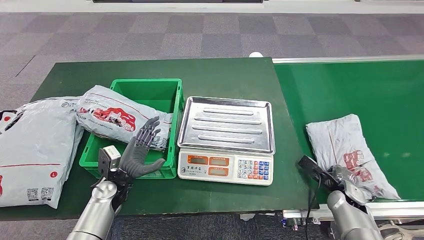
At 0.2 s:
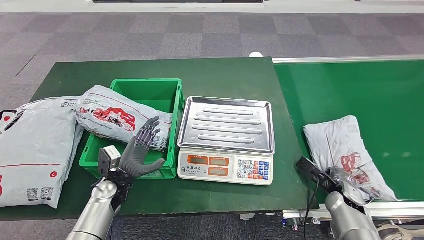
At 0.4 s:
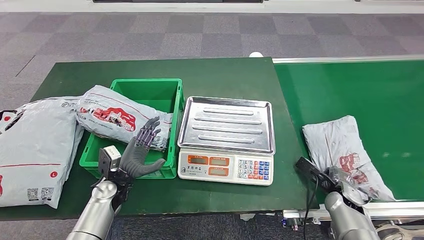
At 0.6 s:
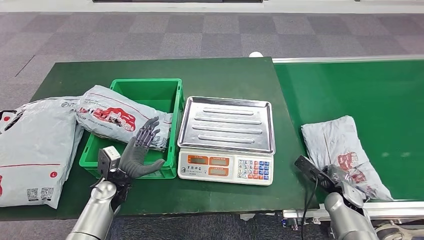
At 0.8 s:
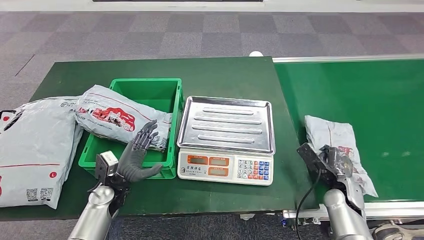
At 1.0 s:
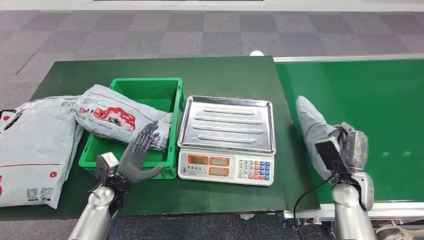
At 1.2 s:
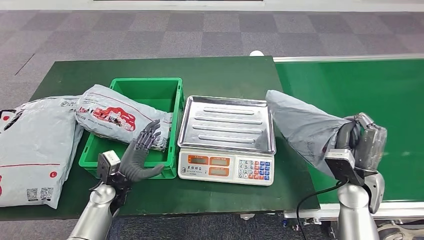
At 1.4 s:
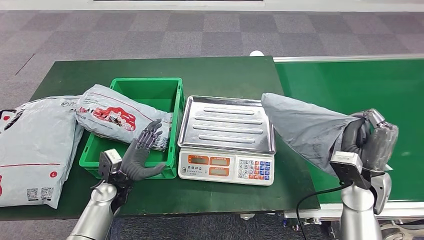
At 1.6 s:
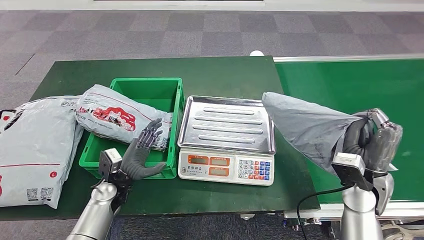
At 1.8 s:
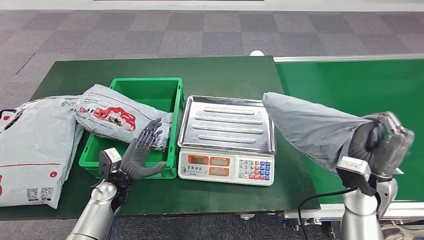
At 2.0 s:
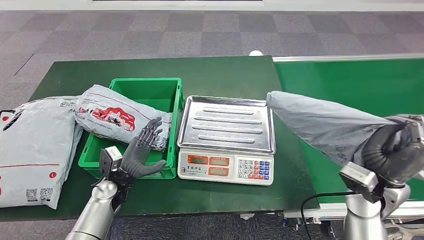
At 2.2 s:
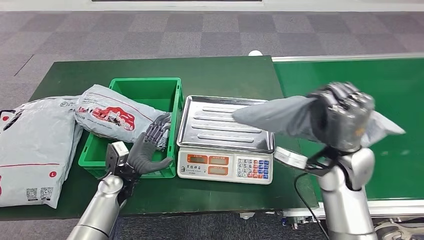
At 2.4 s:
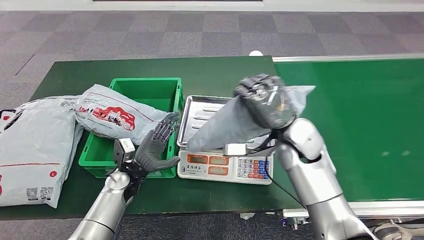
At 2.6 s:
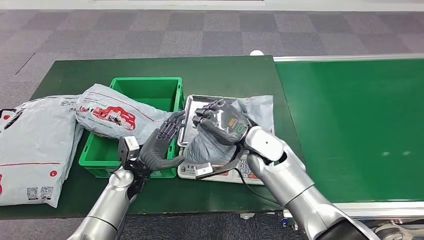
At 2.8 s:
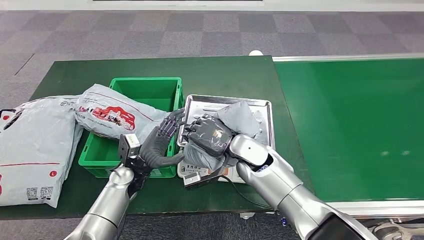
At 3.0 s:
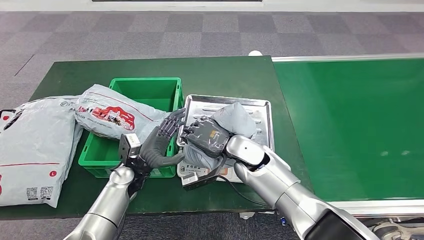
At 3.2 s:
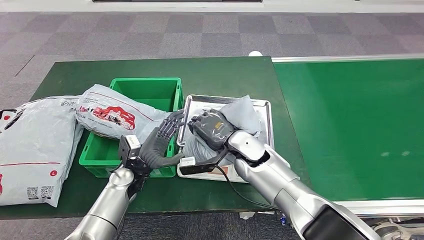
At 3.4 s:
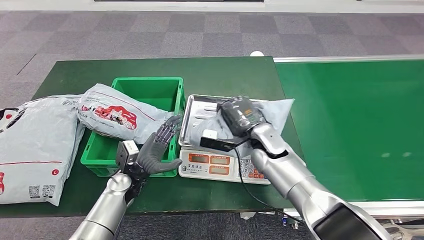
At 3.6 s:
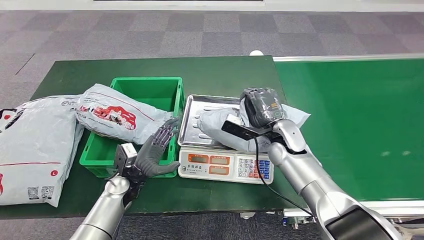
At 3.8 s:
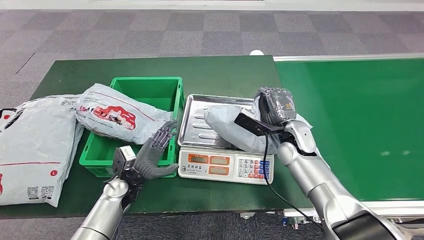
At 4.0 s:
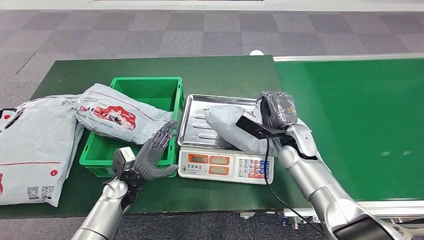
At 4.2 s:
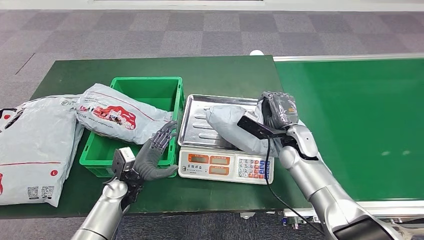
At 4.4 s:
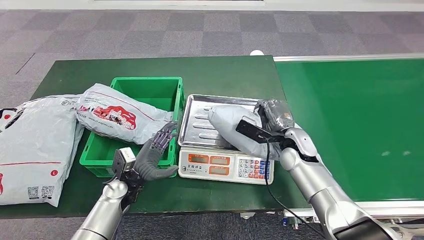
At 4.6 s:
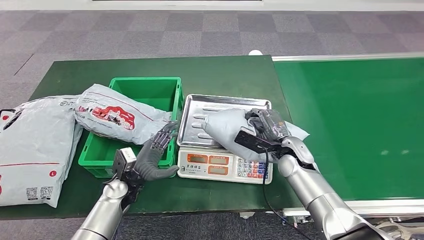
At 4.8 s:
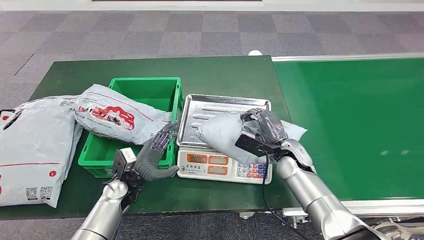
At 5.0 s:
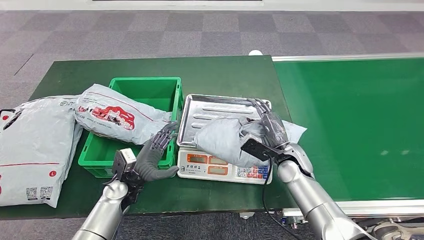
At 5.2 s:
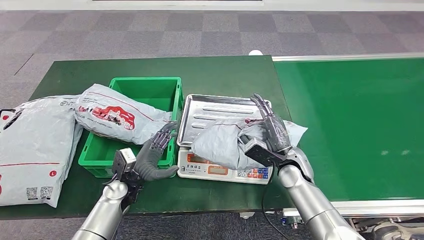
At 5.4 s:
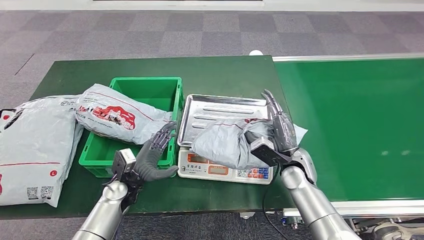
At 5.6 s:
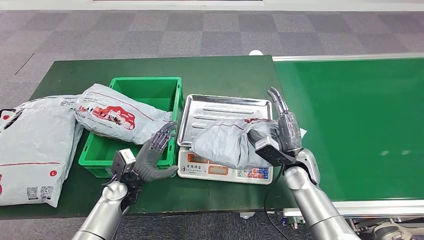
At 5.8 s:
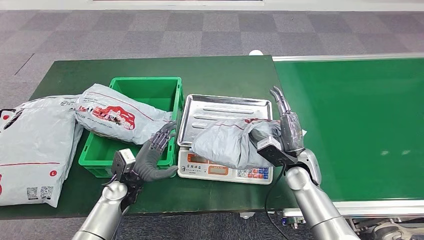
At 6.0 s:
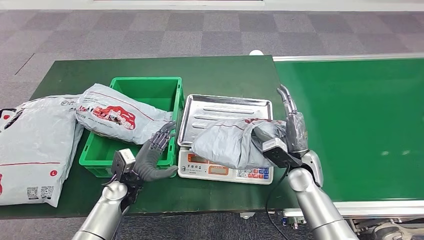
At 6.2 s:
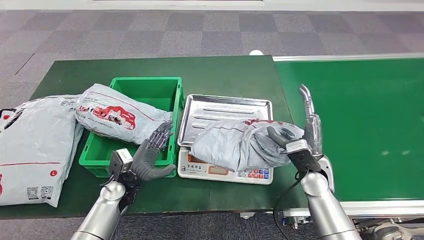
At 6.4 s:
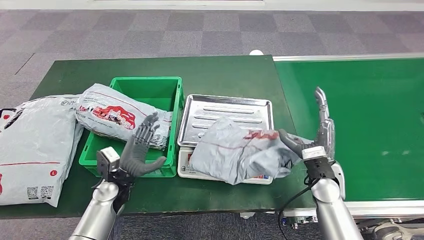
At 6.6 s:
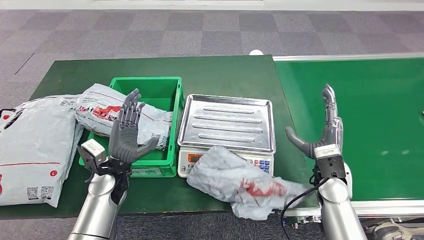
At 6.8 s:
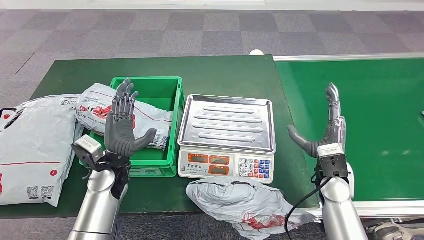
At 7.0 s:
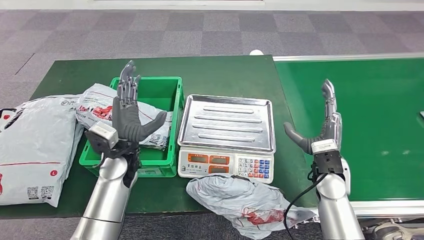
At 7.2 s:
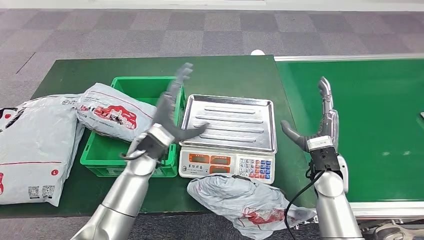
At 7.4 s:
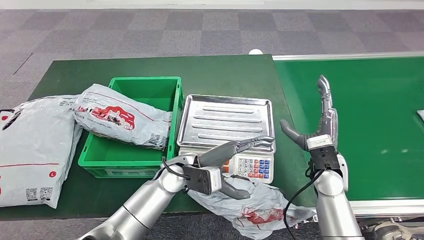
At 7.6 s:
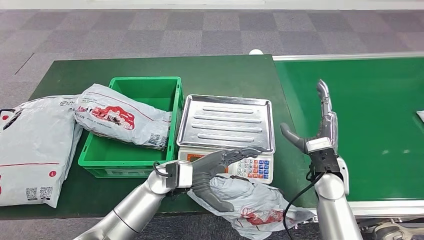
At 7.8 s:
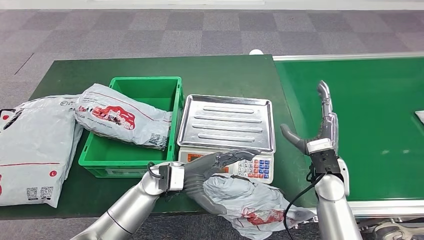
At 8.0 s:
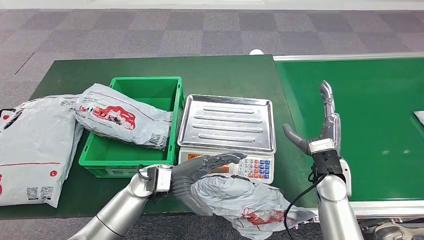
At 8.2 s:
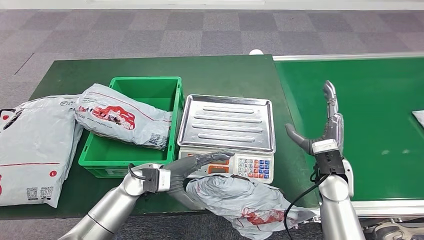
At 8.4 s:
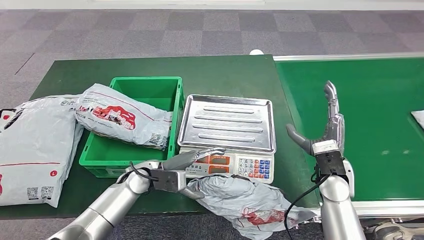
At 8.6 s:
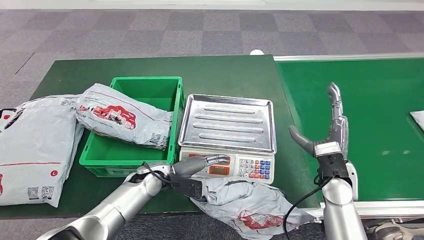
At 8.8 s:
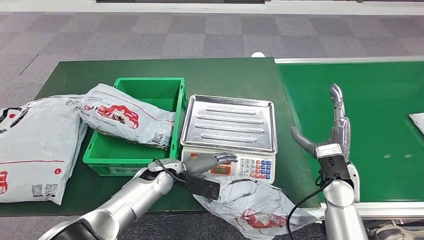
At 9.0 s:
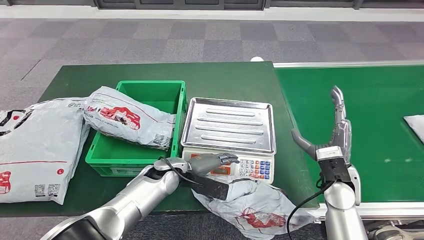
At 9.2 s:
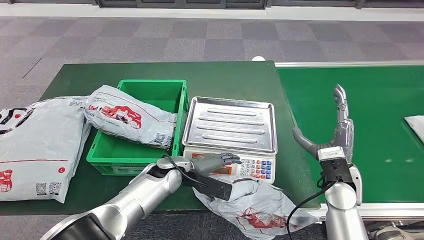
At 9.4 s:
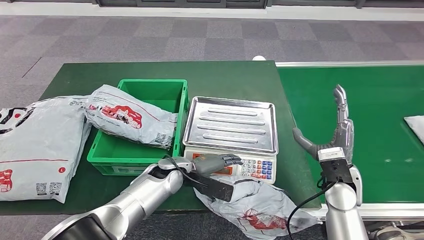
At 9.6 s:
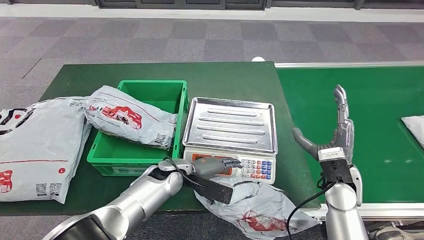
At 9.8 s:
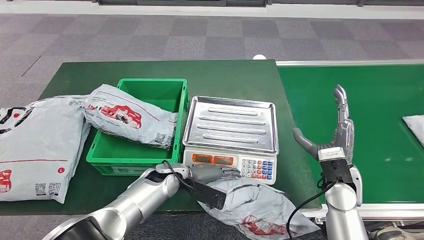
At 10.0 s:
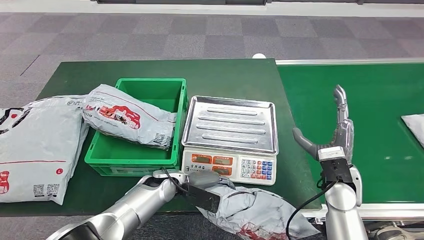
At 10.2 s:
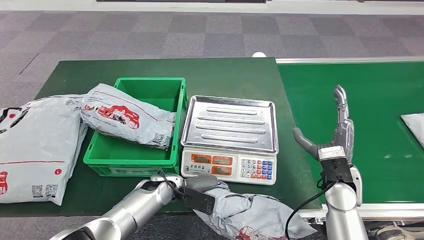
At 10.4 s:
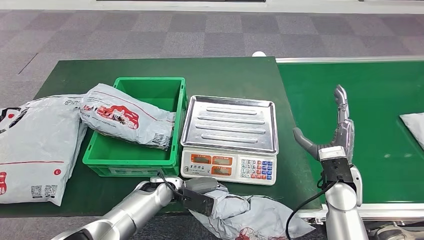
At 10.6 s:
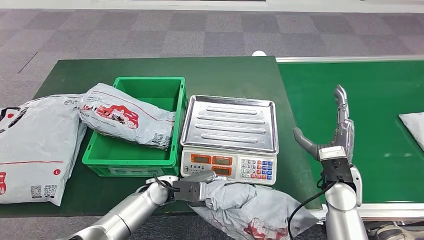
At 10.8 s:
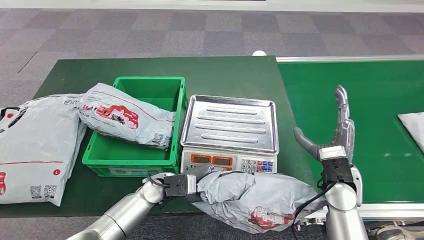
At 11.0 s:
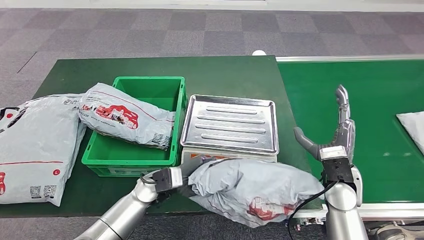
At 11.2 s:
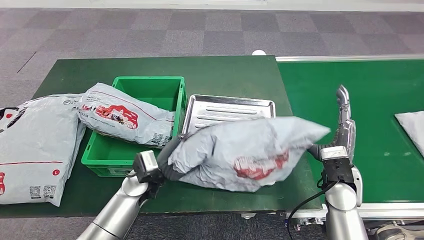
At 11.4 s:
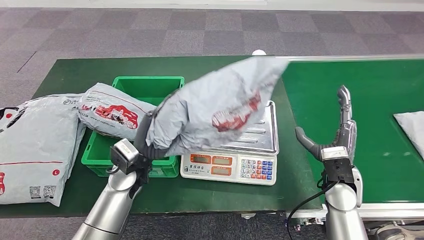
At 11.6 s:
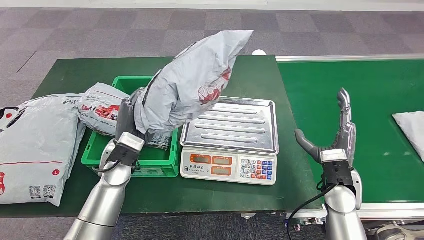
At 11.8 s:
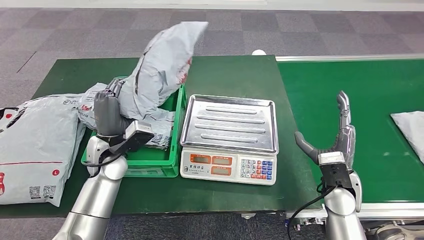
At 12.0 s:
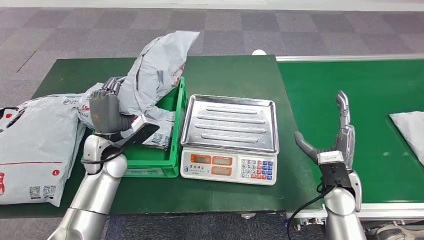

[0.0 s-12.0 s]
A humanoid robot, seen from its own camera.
Step, 0.0 to 1.4 s: Pick up the parcel from the conveyor belt.
Step, 1.6 to 6.0 s: Place the parcel onto the inbound machine.
Step, 9.0 to 11.4 s: Pick up the parcel from the inbound machine.
0.0 to 1.6 s: The right hand goes roughly 15 cm upward.
4.4 to 6.0 s: The right hand goes approximately 5 cm backward.

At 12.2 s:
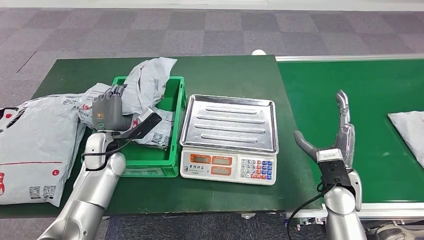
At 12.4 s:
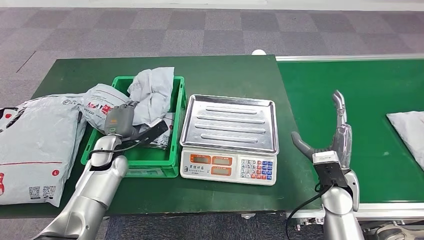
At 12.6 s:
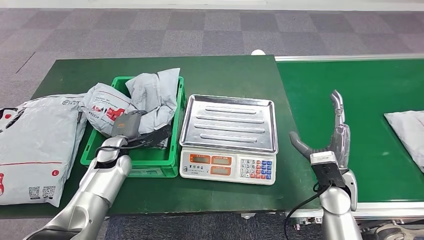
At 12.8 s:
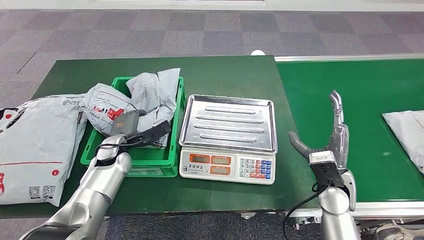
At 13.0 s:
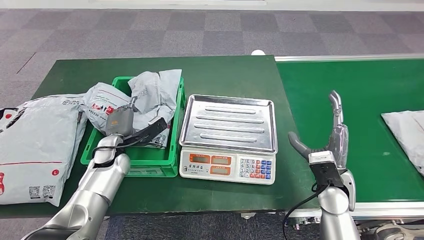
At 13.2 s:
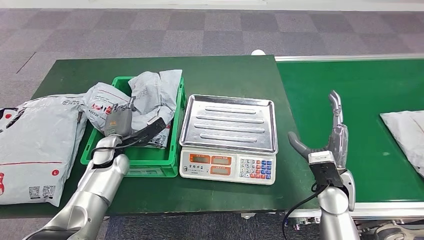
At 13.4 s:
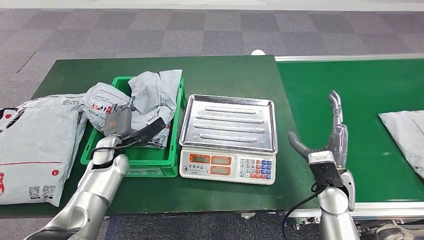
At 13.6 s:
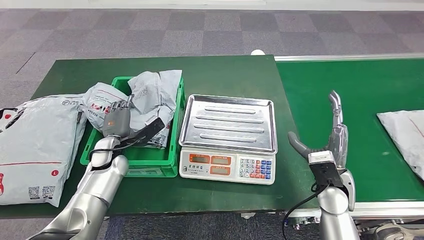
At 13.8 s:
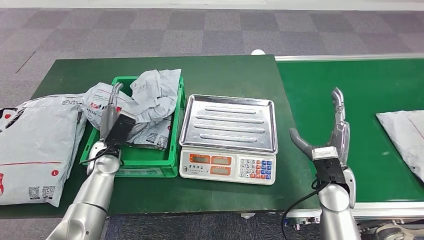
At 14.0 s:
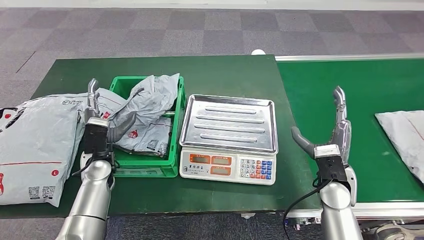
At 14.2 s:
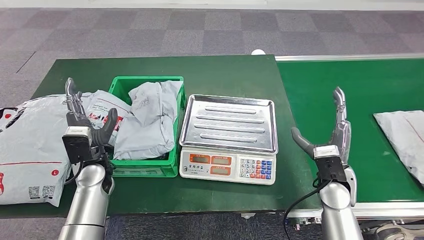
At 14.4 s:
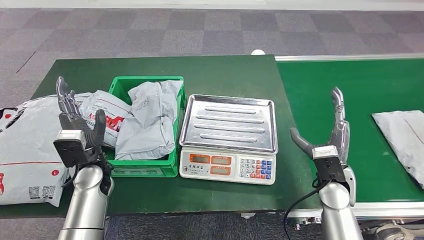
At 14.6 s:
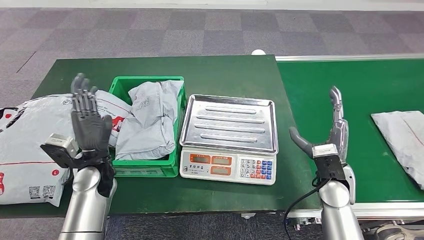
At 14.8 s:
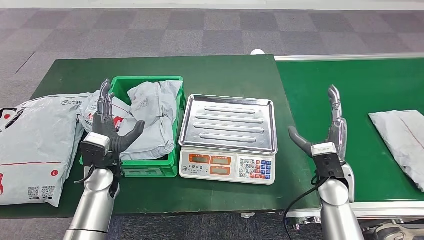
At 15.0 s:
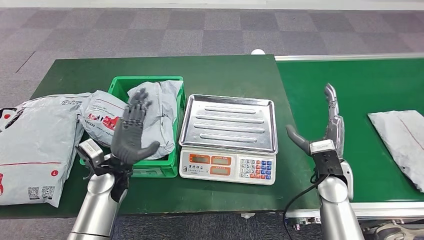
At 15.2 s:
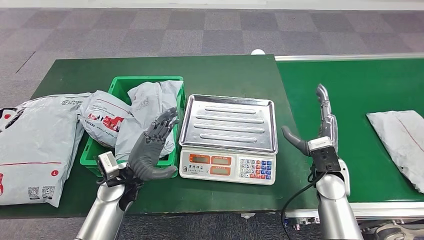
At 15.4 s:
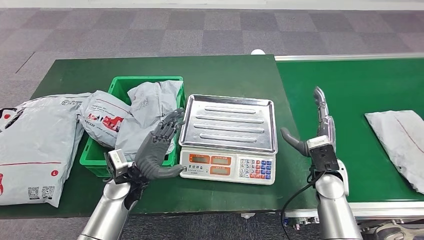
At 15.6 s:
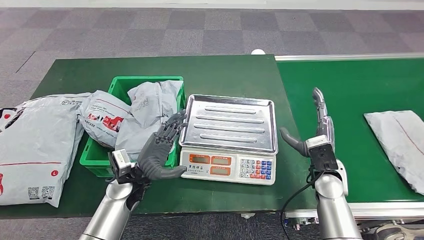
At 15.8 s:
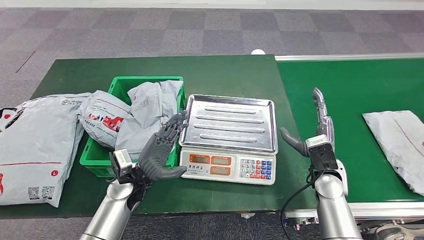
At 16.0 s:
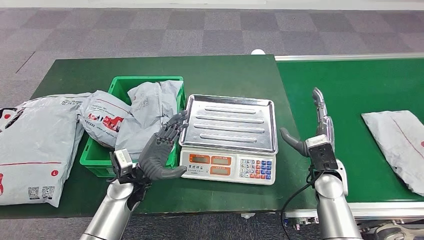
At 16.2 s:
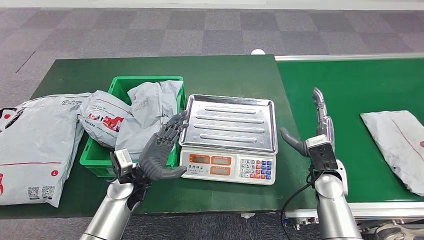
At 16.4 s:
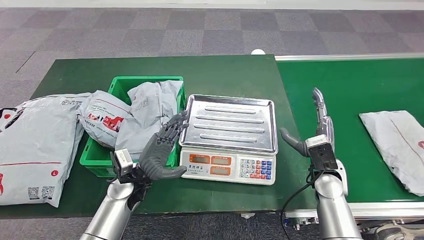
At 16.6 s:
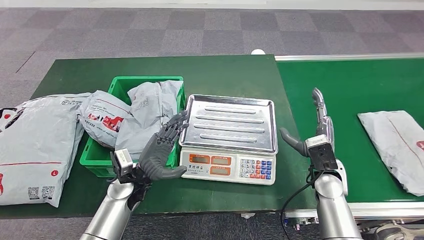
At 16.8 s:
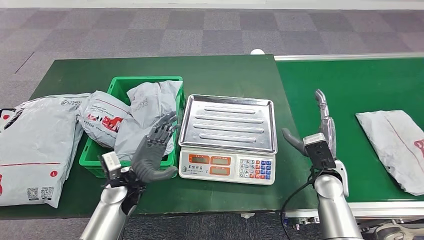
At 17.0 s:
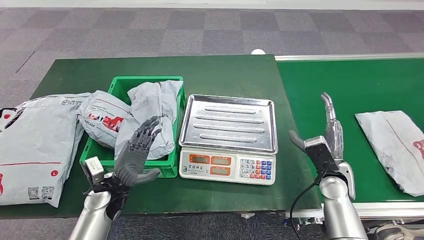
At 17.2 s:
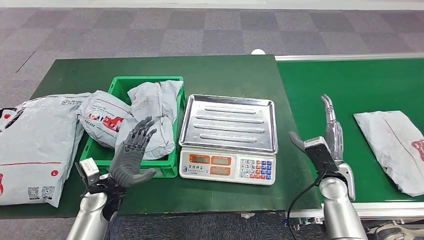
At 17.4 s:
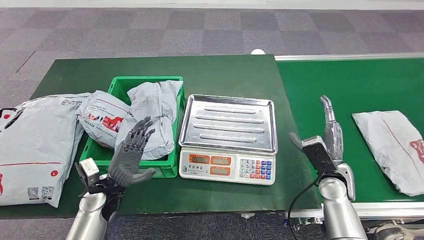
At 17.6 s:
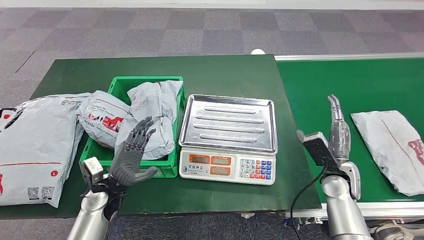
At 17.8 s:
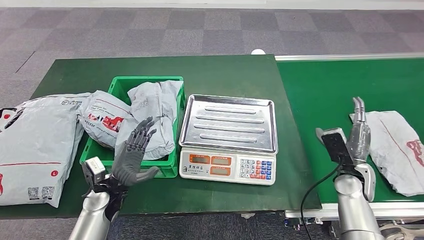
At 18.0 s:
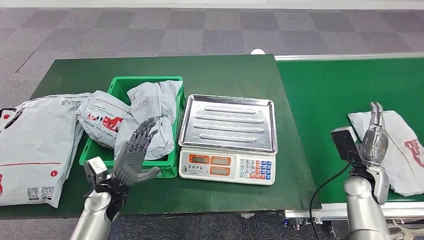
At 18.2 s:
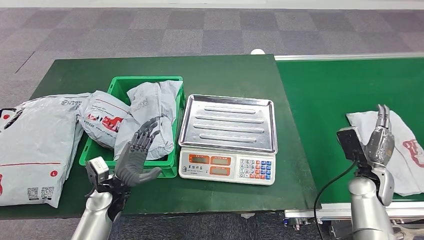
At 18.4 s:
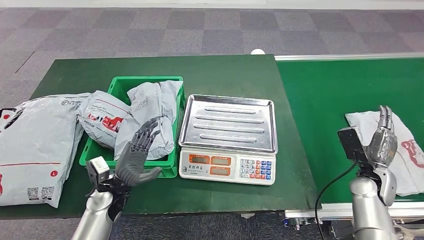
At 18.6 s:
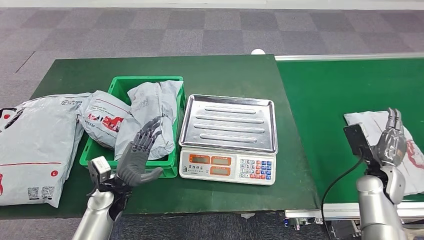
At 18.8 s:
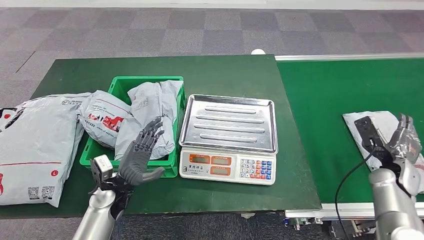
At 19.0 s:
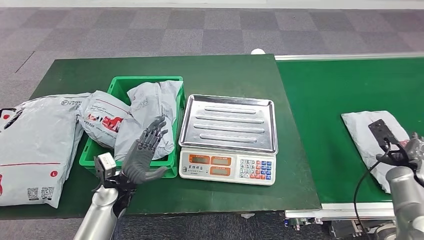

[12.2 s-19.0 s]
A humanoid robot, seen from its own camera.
Step, 12.2 to 14.2 s: Place the parcel into the delivery box.
13.6 to 15.0 s: The left hand shifts approximately 5 cm backward.
15.0 to 16.2 s: The left hand ends up about 5 cm from where it was.
16.2 to 17.6 s: The left hand goes roughly 5 cm to the left.
17.6 to 19.0 s: The right hand heads to the right, covering some 20 cm.
